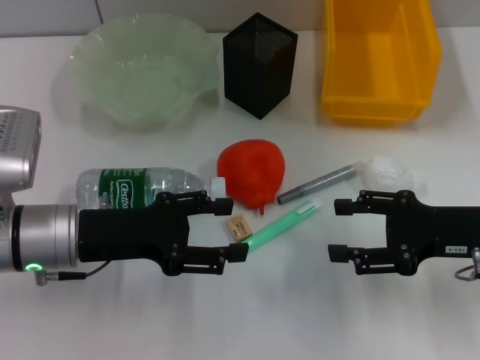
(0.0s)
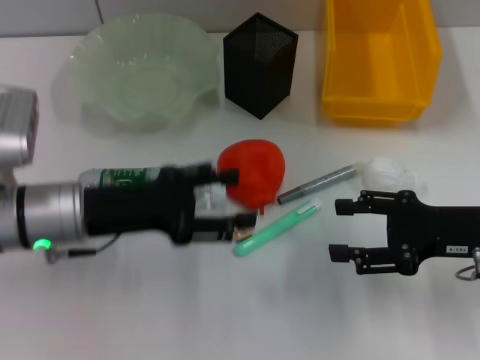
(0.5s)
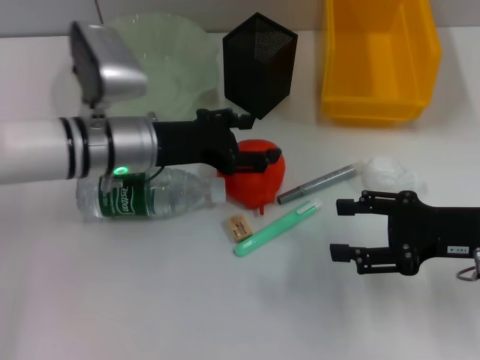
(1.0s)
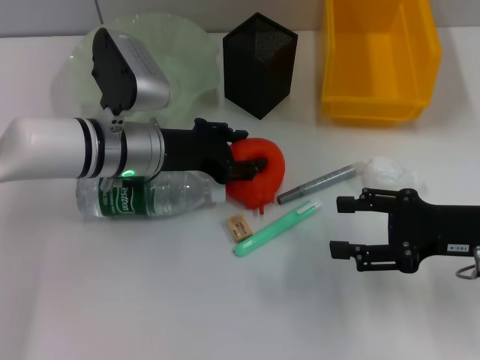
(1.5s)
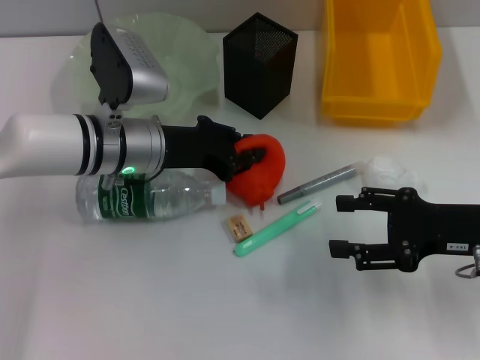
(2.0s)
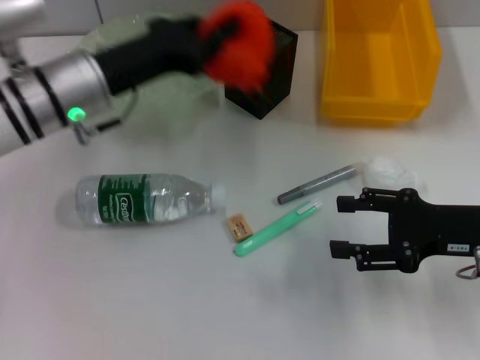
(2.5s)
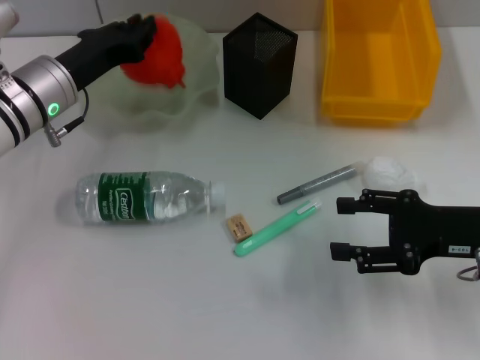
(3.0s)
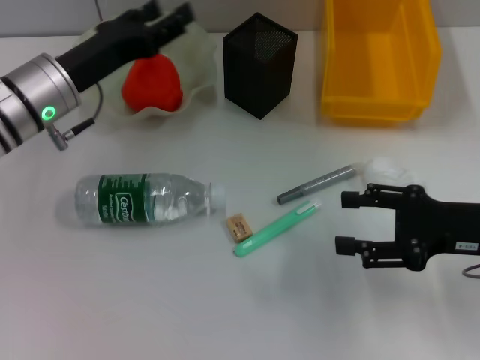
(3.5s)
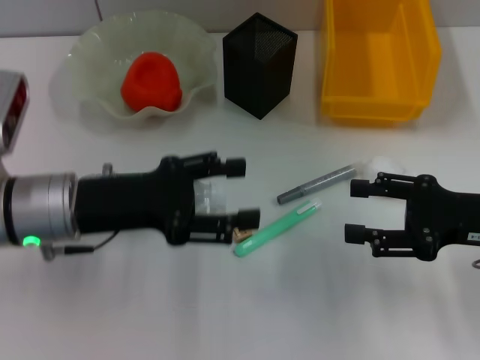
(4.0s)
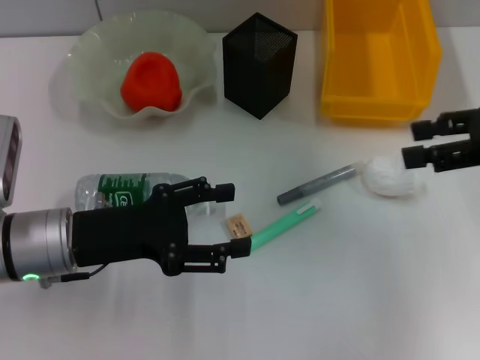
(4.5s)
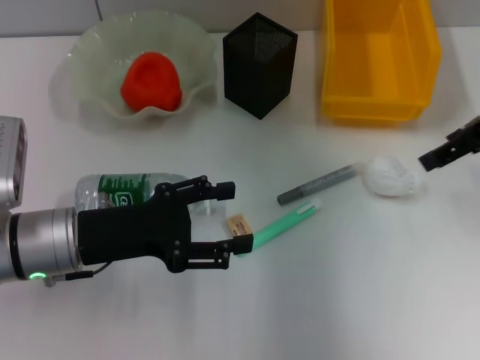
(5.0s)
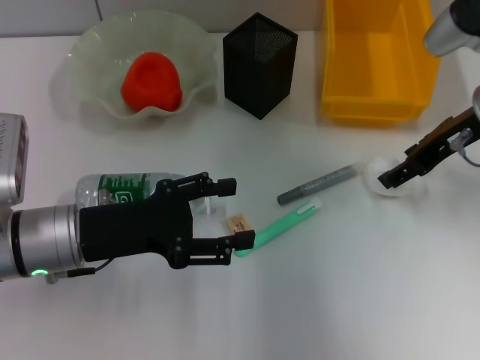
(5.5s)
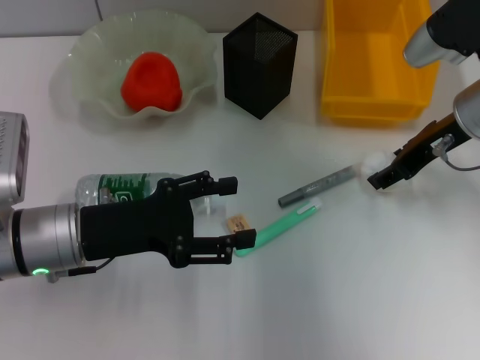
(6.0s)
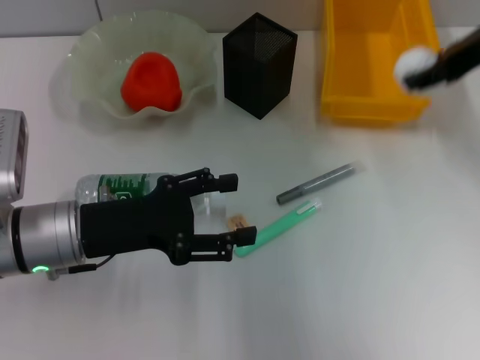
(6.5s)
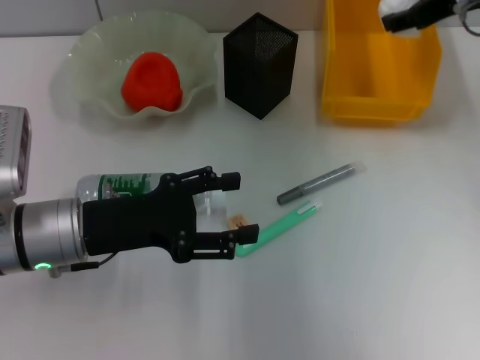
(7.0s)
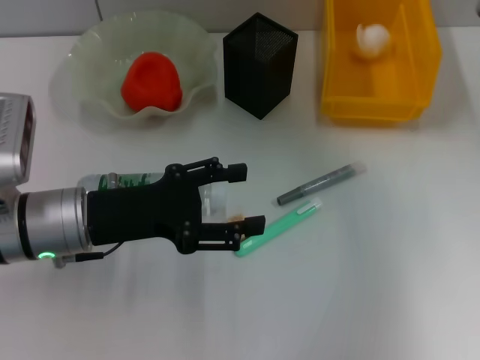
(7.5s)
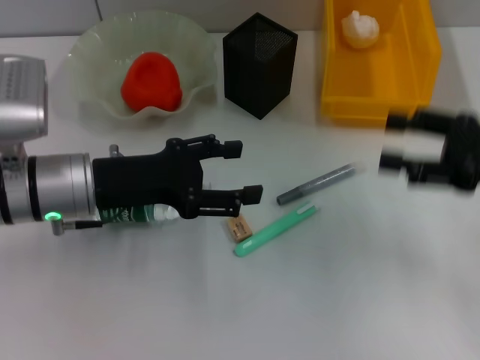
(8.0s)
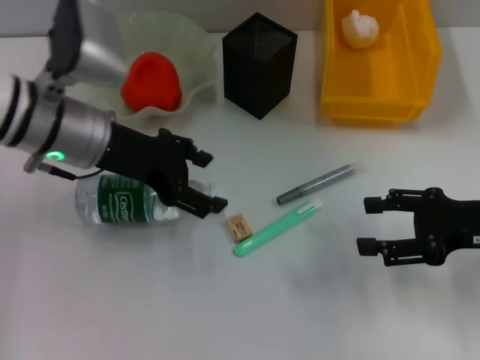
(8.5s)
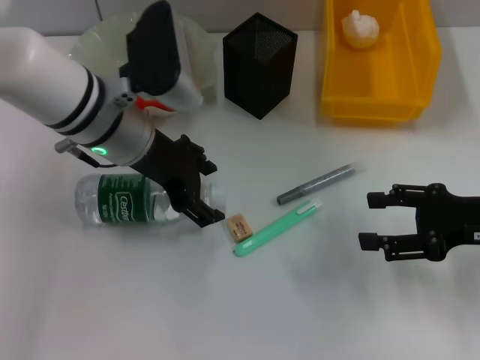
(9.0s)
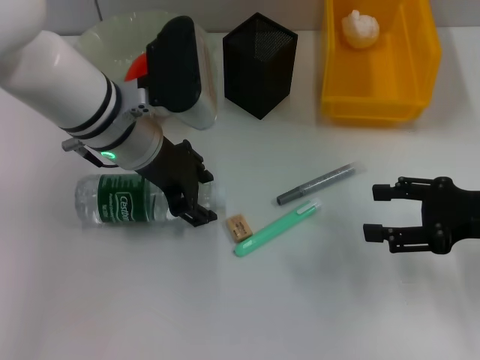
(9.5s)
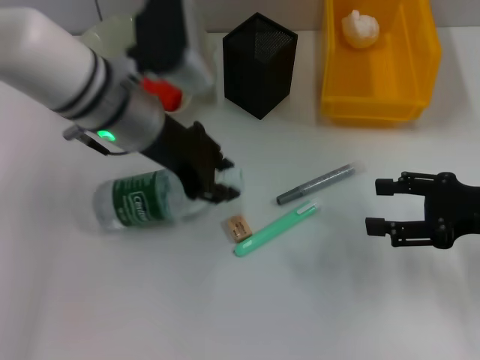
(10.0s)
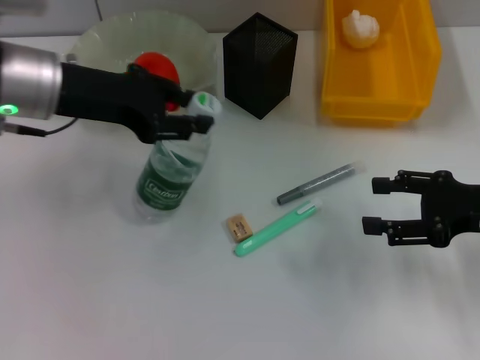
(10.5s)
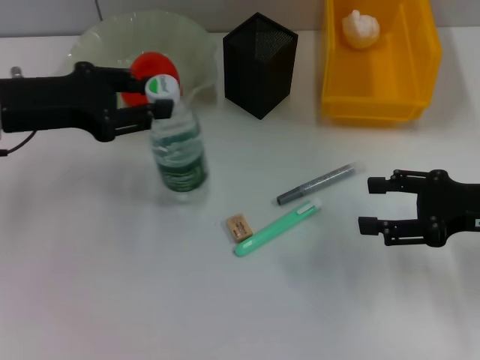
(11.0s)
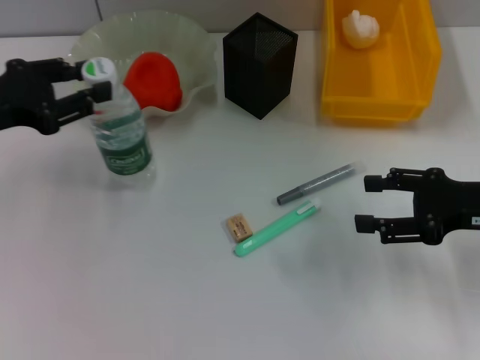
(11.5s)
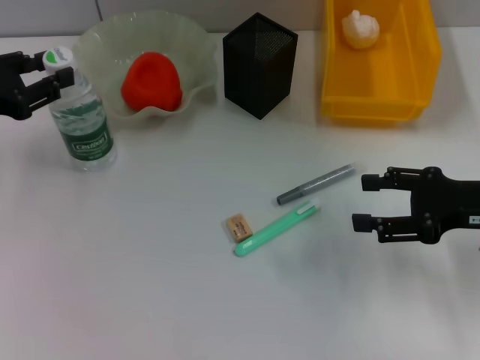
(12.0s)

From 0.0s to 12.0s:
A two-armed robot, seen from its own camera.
Step, from 0.0s to 1.5s: Grab the orange with the left hand.
Step, from 2.0s to 3.0s: Place the orange into the fruit bowl with the left hand.
Step, from 3.5s to 5.5s: Grab the paper ball with the right hand.
Step, from 6.0s to 7.5s: Place the paper ball into the trash can with the right hand.
Step, from 8.0s to 9.5s: Grab the water bottle with the left hand.
From 0.0s to 2.0s: The left gripper is displaced forward and to the right by roughly 10 cm, and closes.
From 2.0s to 4.0s: The left gripper heads backward and to the left, covering approximately 10 cm, and opens up.
From 4.0s to 6.0s: The right gripper goes roughly 15 cm forward, to the left and upward.
From 6.0s to 8.0s: The right gripper goes some 15 cm backward and to the right.
From 8.0s to 10.0s: The left gripper is displaced to the right, upward and forward by approximately 10 cm, and closes.
From 10.0s to 12.0s: The left gripper moves to the left, approximately 20 cm.

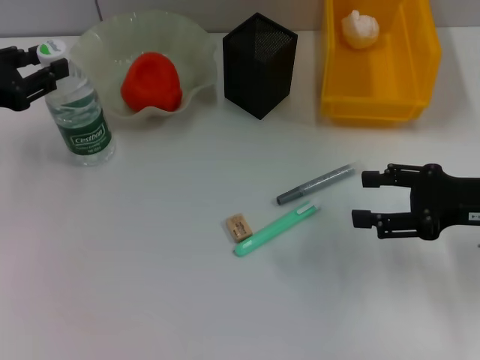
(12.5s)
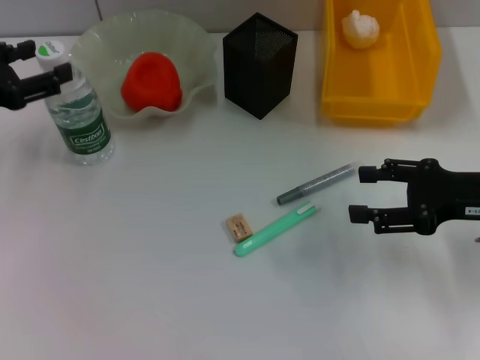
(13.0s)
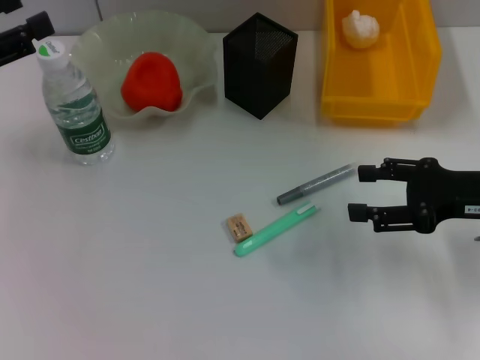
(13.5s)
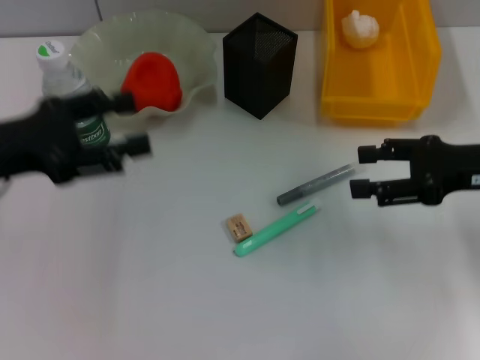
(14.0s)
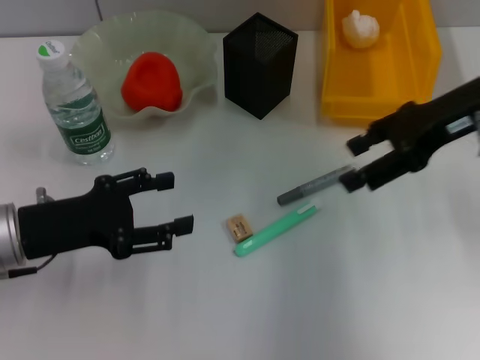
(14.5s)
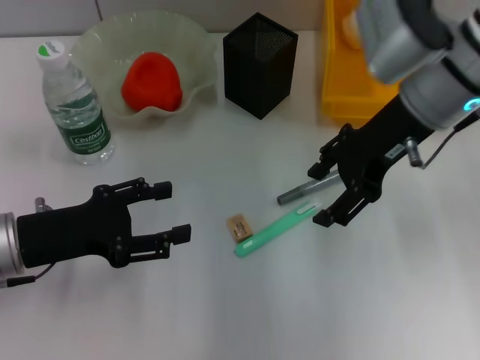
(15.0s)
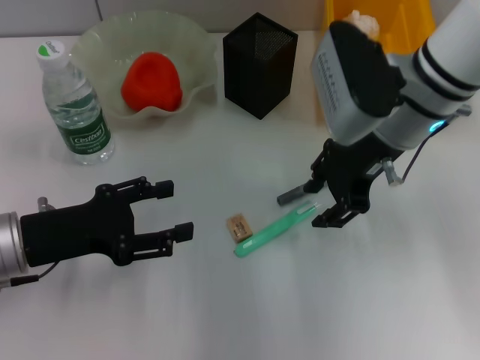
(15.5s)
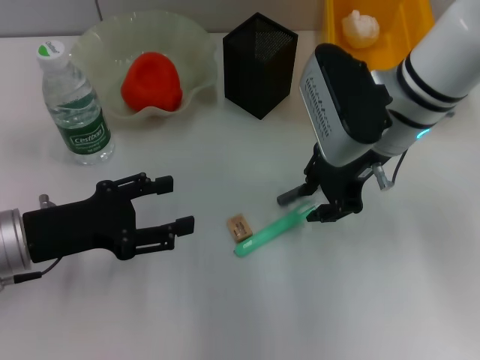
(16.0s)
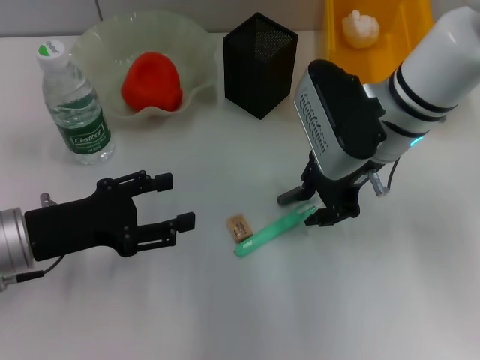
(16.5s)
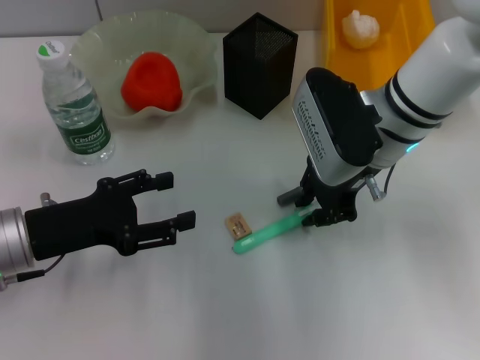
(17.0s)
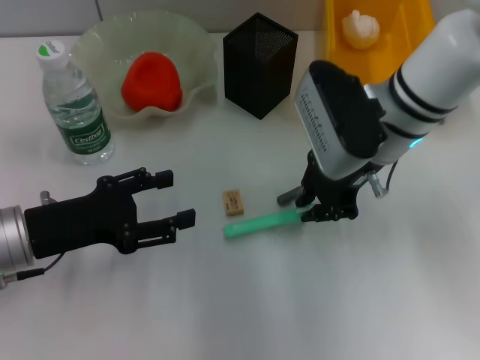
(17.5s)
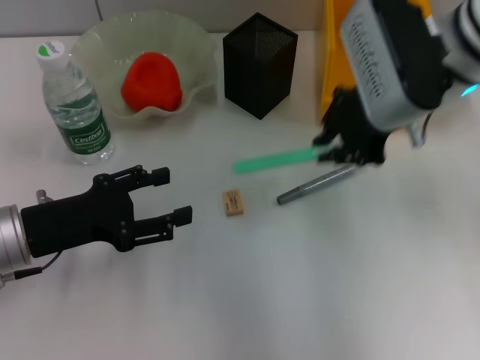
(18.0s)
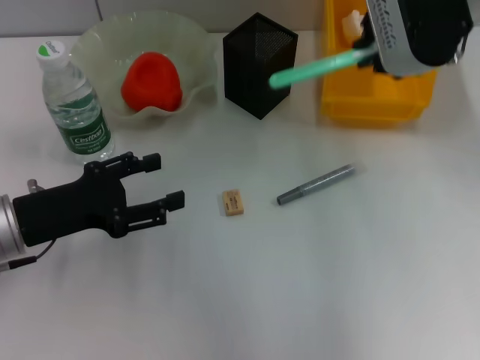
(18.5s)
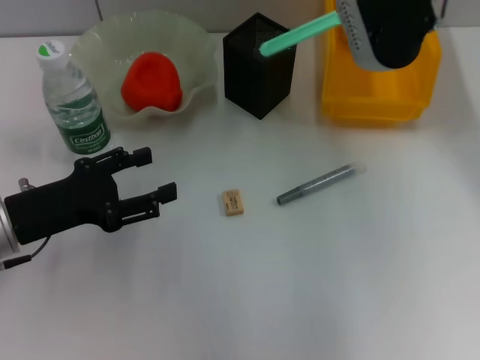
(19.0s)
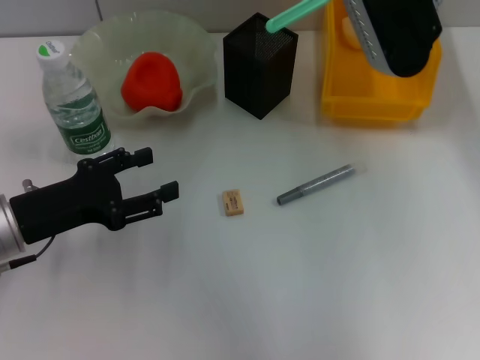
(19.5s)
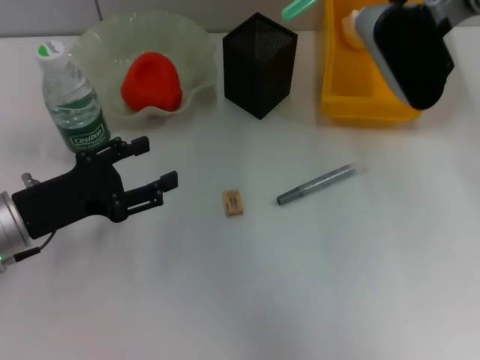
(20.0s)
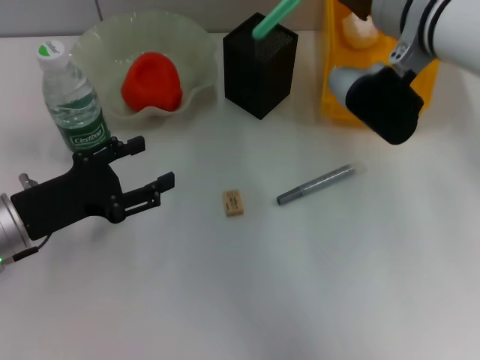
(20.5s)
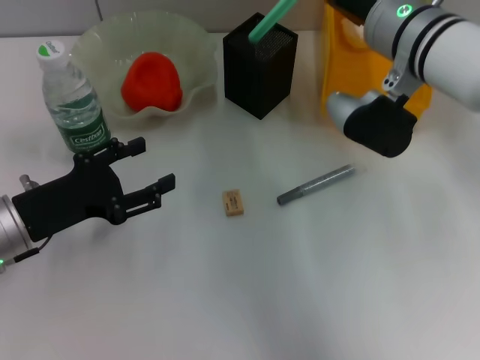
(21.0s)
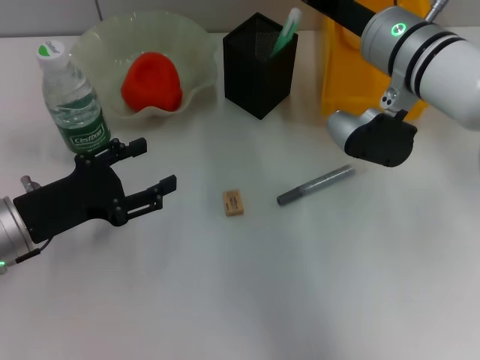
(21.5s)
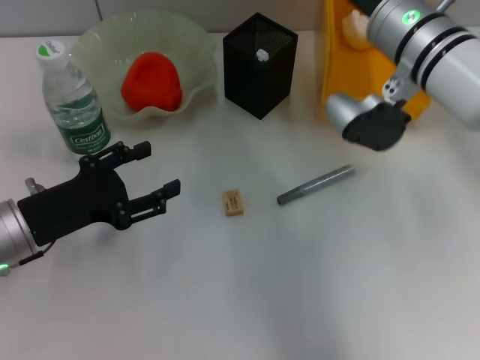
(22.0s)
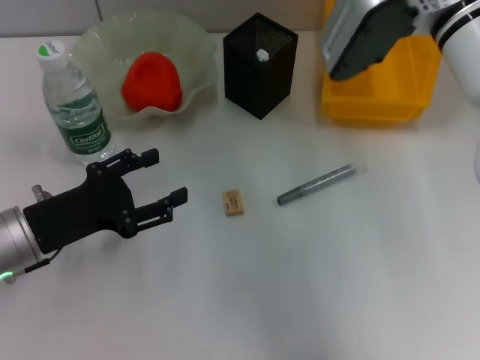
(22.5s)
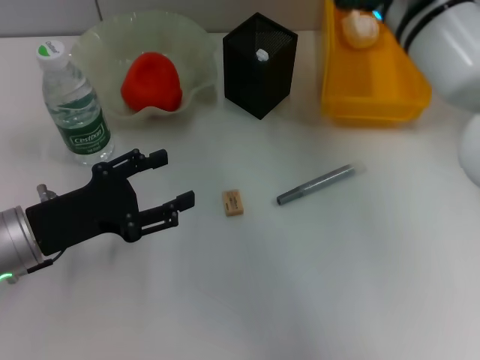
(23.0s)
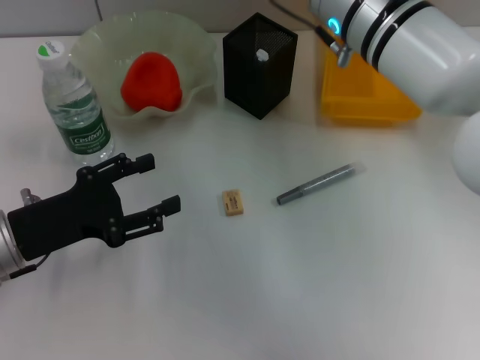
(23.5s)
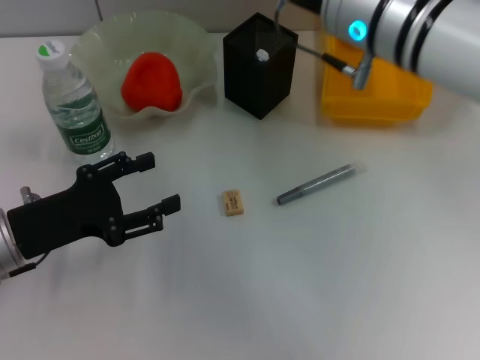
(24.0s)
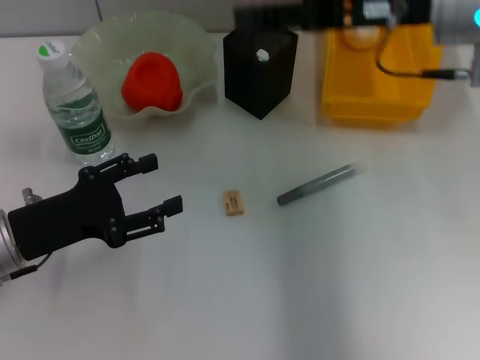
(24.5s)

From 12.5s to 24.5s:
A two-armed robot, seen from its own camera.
Step, from 13.0s to 17.0s: Grab the blue utility knife with the right hand.
Step, from 17.5s to 21.5s: Place the blue utility knife into the pen holder with the right hand.
From 12.5s to 14.5s: The right gripper moves upward, forward and to the left, about 15 cm. Meanwhile the left gripper goes some 10 cm to the right, backward and downward, and opens its fingers.
From 14.5s to 16.5s: The right gripper is displaced to the left and downward by roughly 15 cm, and closes its fingers.
From 16.5s to 18.5s: The right gripper travels upward by some 15 cm.
From 18.5s to 20.5s: The right gripper goes about 10 cm downward.
From 20.5s to 22.5s: The right gripper opens its fingers.

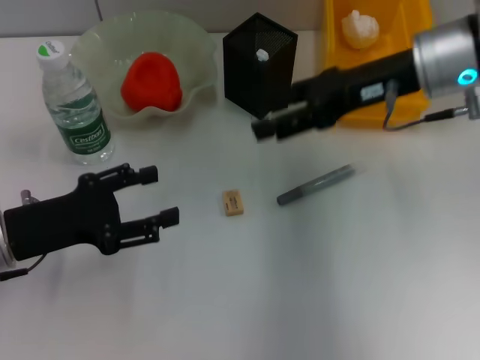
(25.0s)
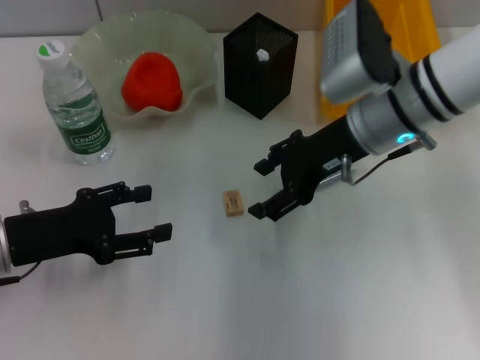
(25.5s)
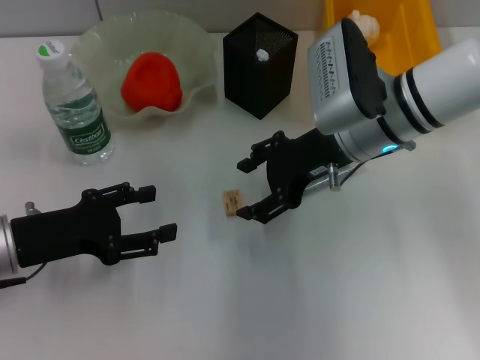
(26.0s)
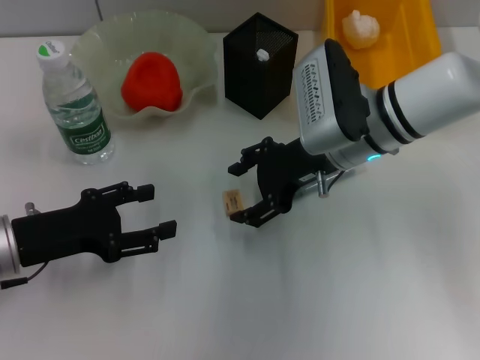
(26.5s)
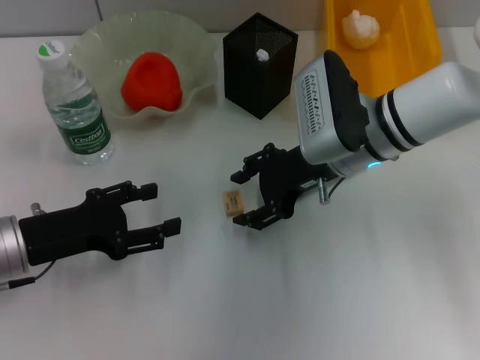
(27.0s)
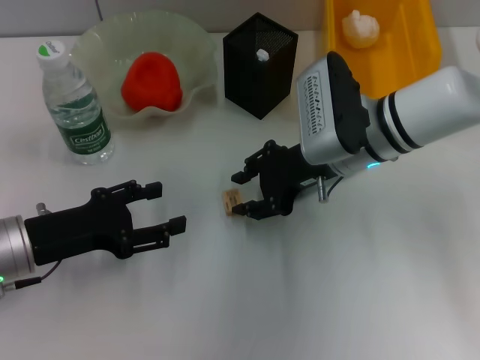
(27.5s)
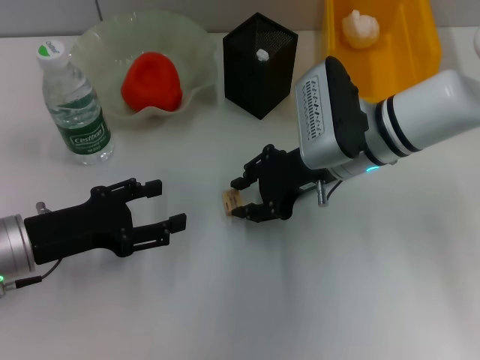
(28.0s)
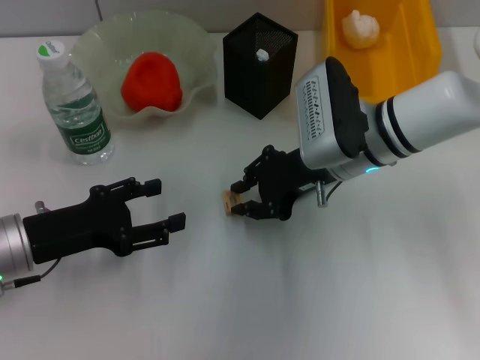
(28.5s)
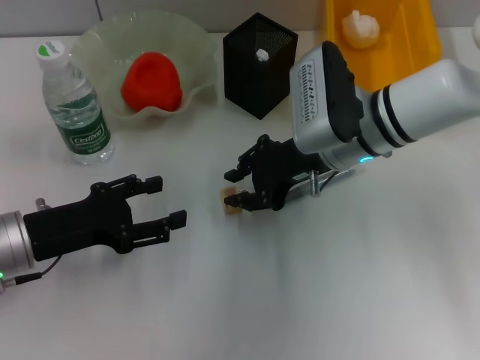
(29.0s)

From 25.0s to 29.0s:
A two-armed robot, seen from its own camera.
From 25.0s to 27.0s: The right gripper moves downward and to the left, approximately 10 cm.
From 27.0s to 29.0s: The right gripper closes.
